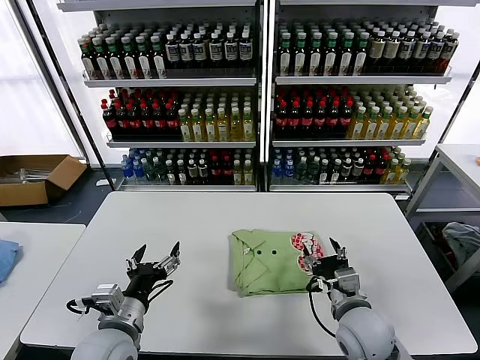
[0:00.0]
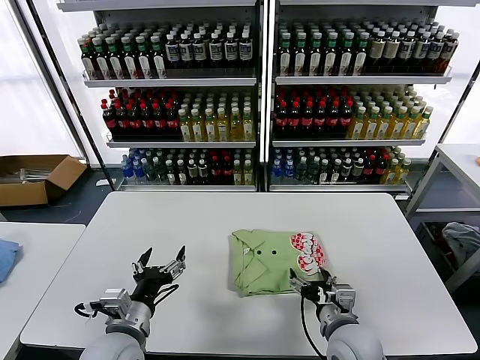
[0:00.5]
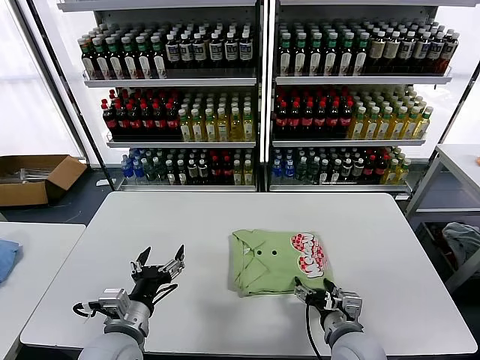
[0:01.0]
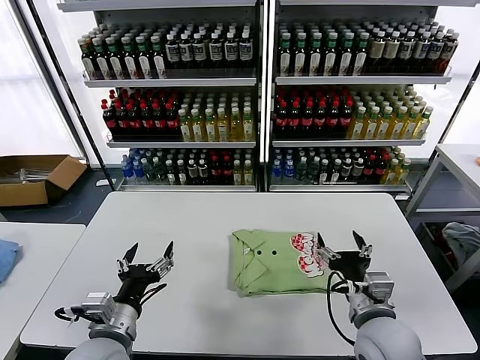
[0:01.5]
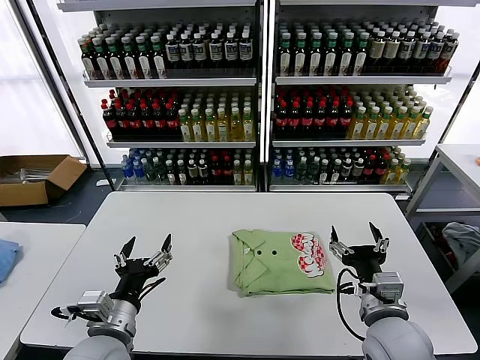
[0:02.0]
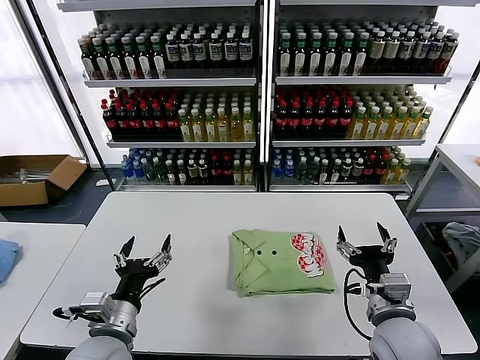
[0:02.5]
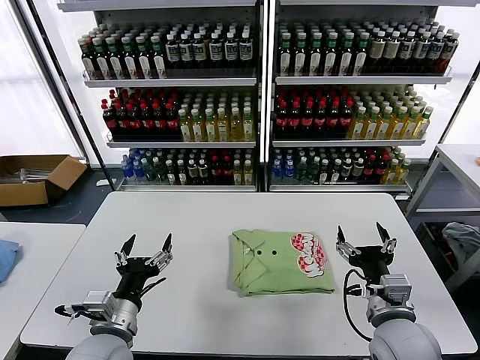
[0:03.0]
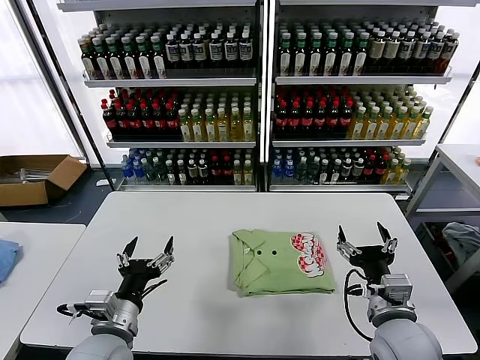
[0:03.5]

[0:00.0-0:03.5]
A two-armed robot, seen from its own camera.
Task of the whole recording: fold and organize the clothes.
0:00.0 to 0:02.0: The right gripper travels upward by roughly 5 cm.
0:02.0 to 0:03.5: The grippers stay close to where they were, moving slightly.

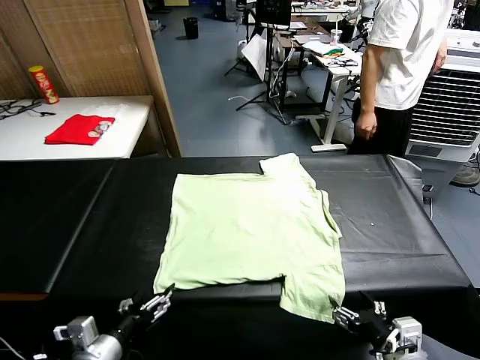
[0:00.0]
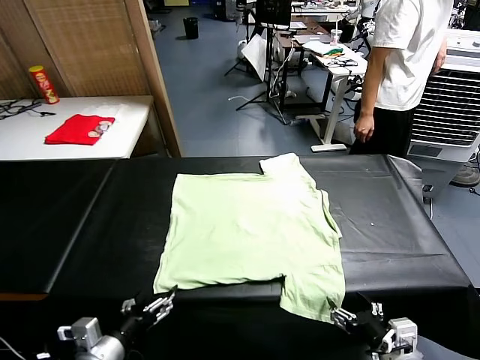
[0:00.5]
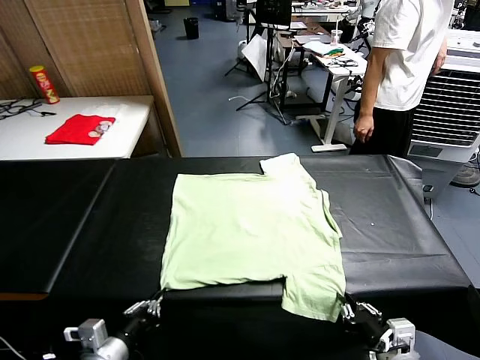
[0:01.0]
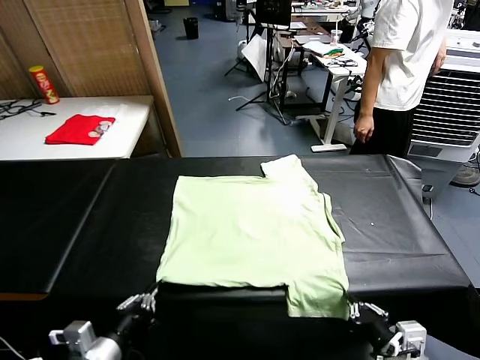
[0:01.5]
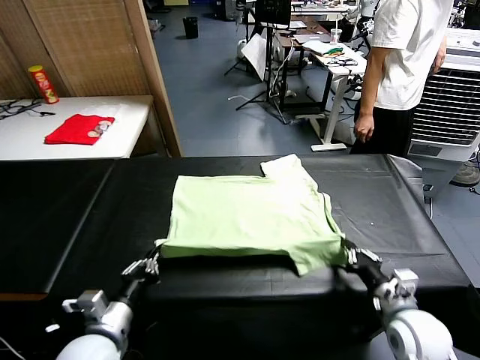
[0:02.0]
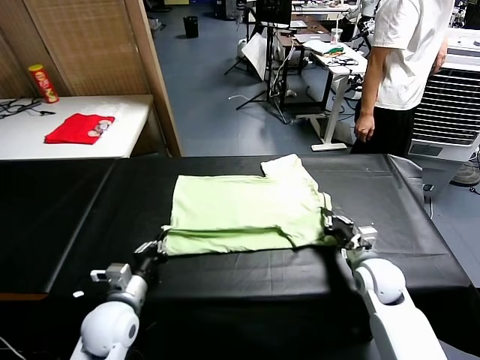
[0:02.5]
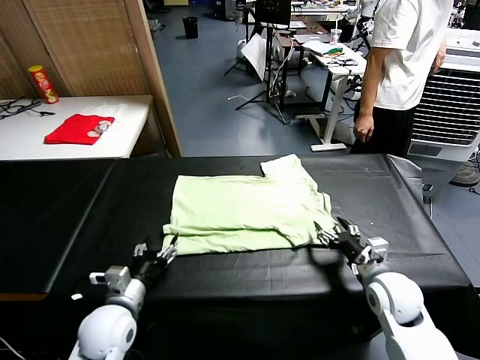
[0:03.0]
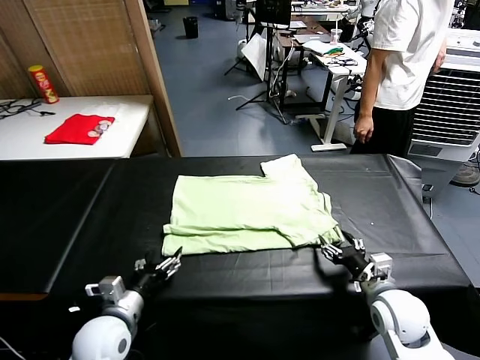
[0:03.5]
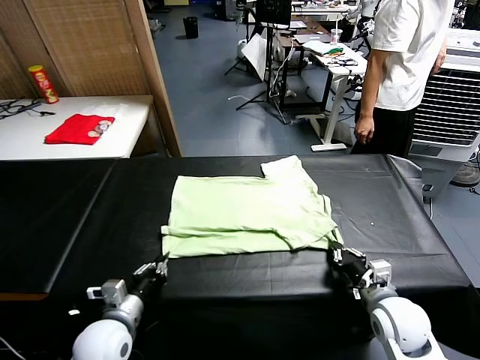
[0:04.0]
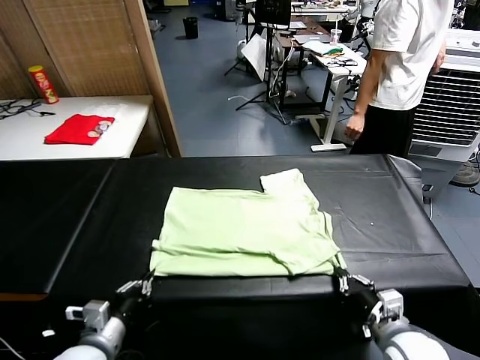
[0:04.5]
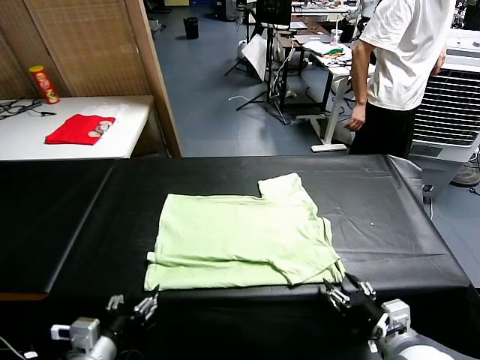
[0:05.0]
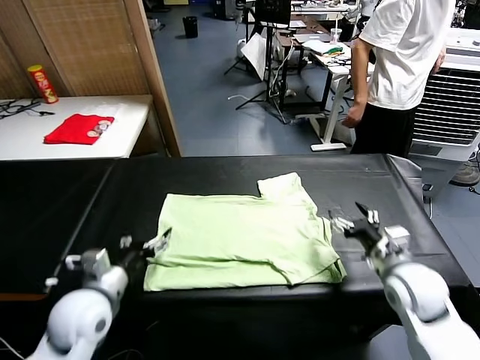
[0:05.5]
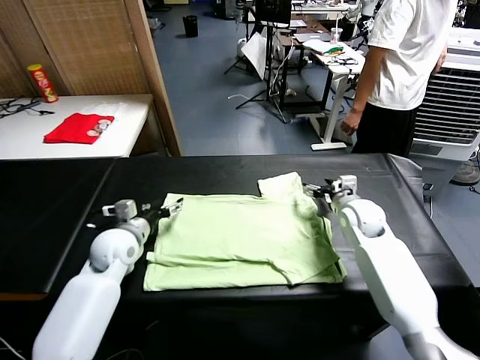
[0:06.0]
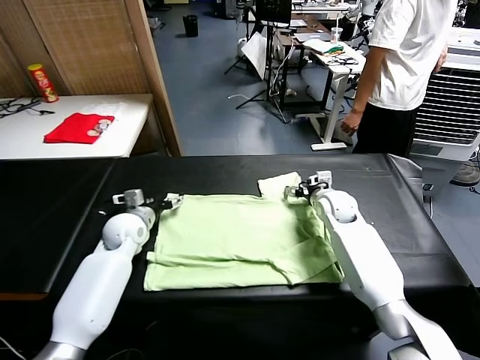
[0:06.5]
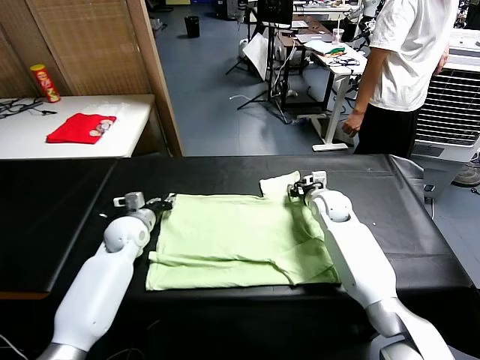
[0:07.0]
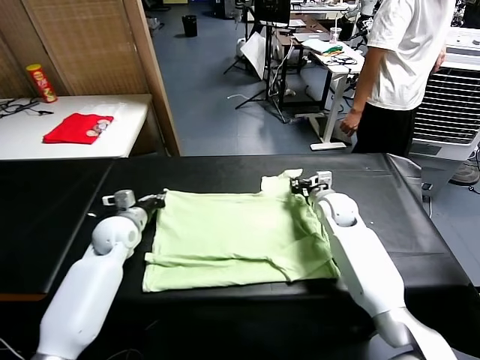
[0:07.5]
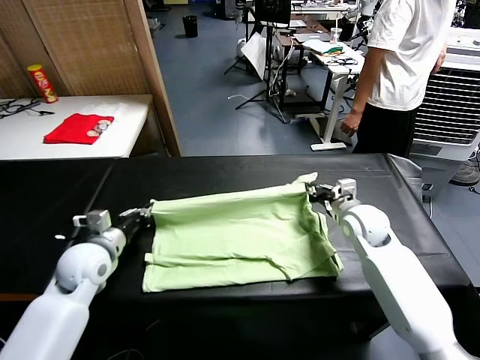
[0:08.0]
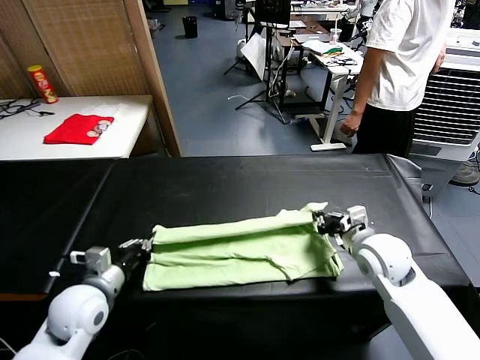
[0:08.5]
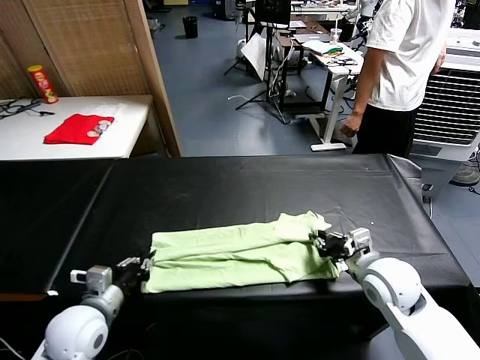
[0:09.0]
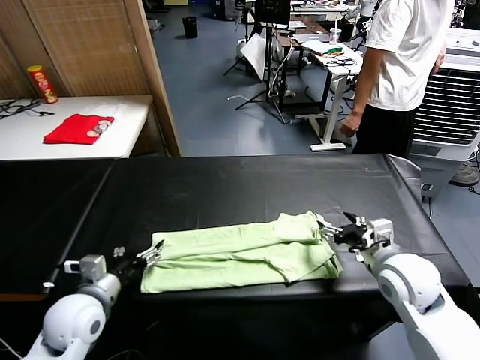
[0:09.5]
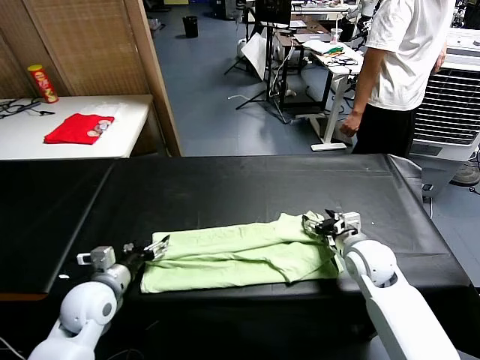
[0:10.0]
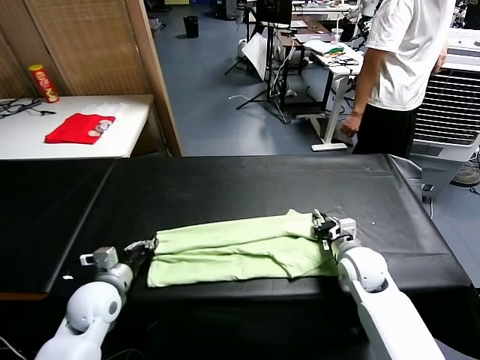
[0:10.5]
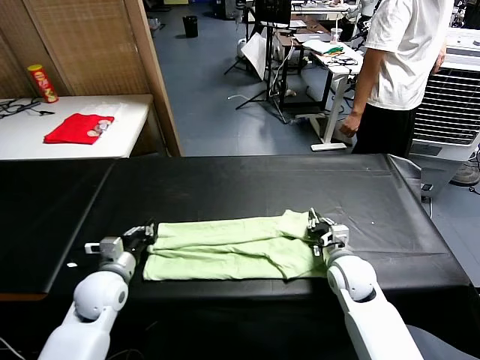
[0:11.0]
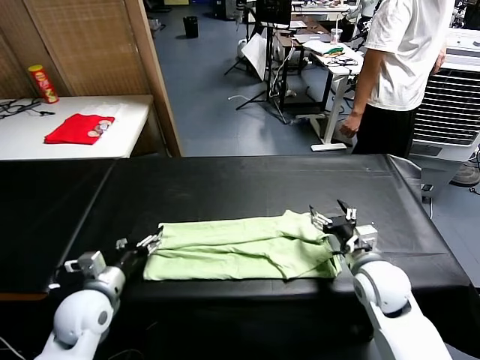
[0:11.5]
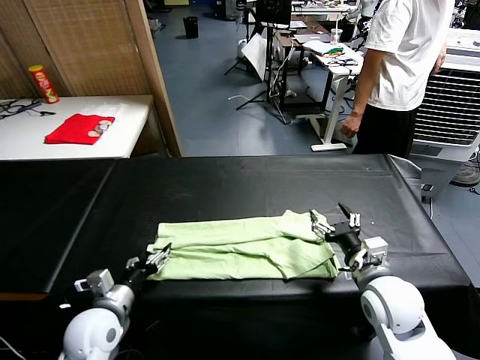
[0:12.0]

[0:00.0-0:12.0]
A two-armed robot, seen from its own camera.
Task of the whole recording: fold and organize the clothes.
Step, 0:00.0 to 0:01.0: use both grippers simultaneously to clamp the lower edge of the clothing fabric.
Step, 0:01.5 to 0:02.5: use both grippers to drag the lower edge of the fabric forward and fold it over the upper edge.
Step, 0:03.0 to 0:05.0: Drag the clothes downward with both gripper.
Step, 0:05.5 to 0:07.0: use both grippers simultaneously to clamp the upper edge of the clothing fabric.
Step, 0:07.5 to 0:09.0: use both grippers to drag the upper edge of the fabric backward and fold it over the lower edge.
0:02.0 to 0:04.0: The right gripper heads backward, covering roughly 10 cm, and opens, then closes once more. The left gripper opens, then closes once more.
0:04.0 to 0:06.0: The two grippers go about 25 cm forward. The left gripper opens up. Meanwhile the right gripper opens its fingers.
0:06.0 to 0:08.0: The left gripper shifts approximately 5 cm backward, and closes up; the right gripper goes approximately 10 cm backward, and closes.
0:08.0 to 0:10.0: The left gripper travels backward by roughly 5 cm, and opens up; the right gripper shifts roughly 5 cm downward, goes backward and returns, roughly 10 cm each way, and opens.
0:10.0 to 0:12.0: The left gripper ends up some 5 cm from where it was, and closes, then opens again; the right gripper is displaced backward by about 10 cm, and closes, then opens again.

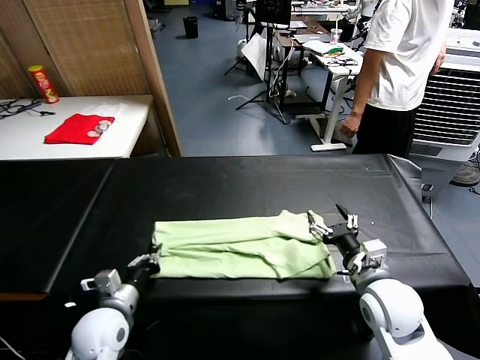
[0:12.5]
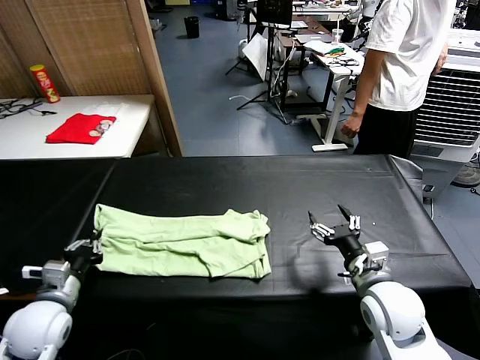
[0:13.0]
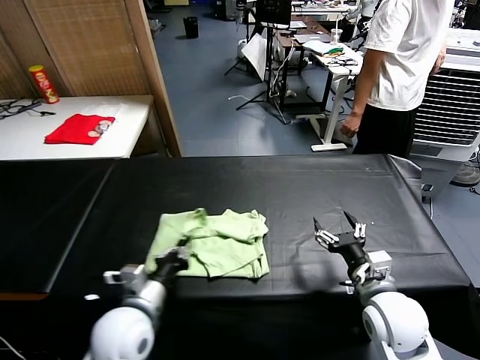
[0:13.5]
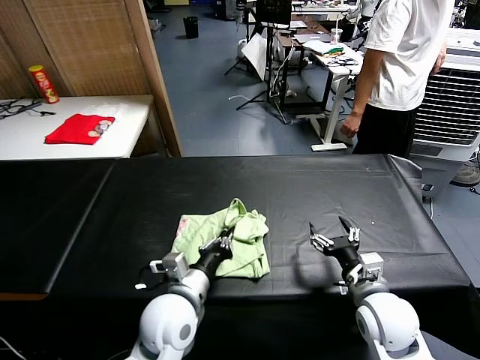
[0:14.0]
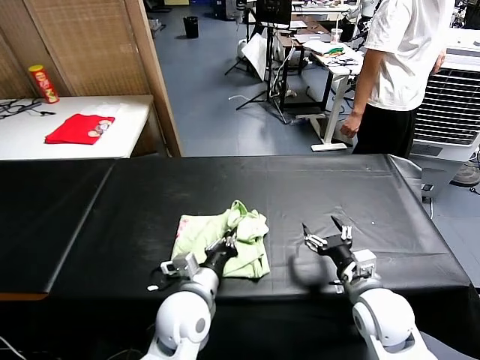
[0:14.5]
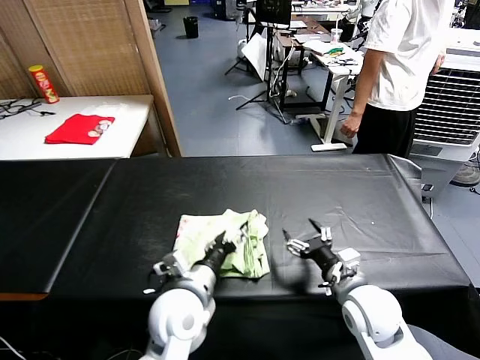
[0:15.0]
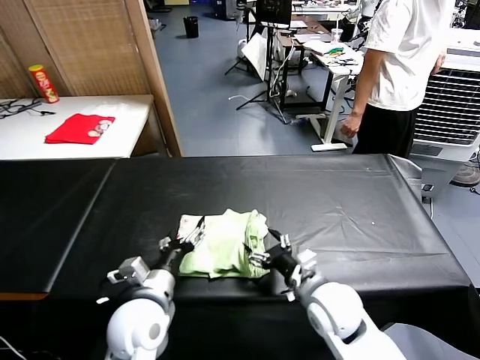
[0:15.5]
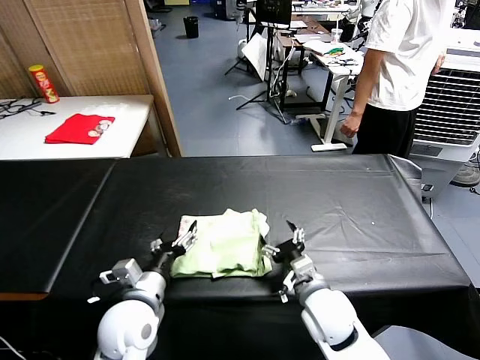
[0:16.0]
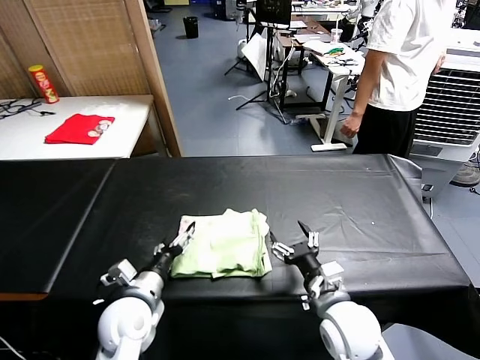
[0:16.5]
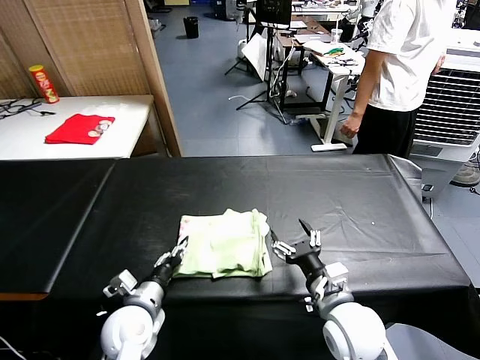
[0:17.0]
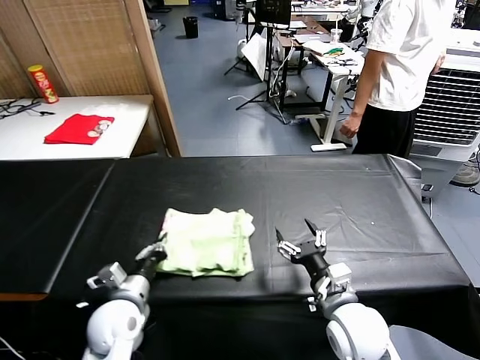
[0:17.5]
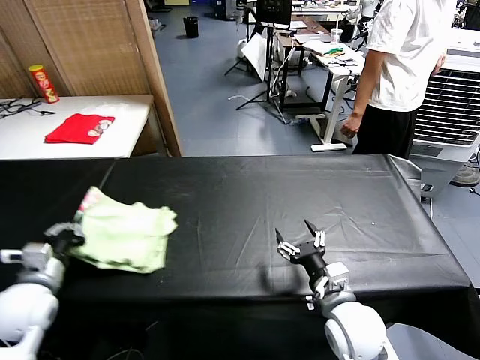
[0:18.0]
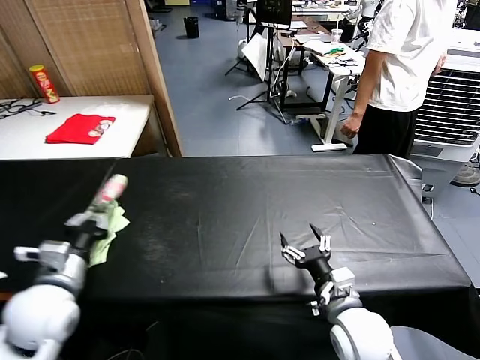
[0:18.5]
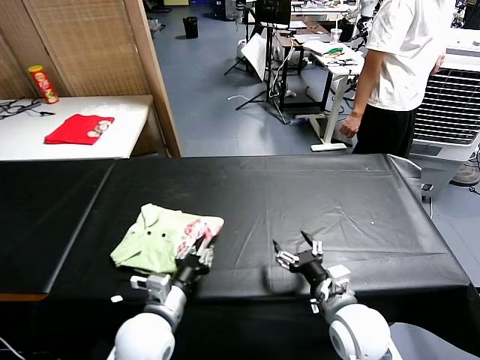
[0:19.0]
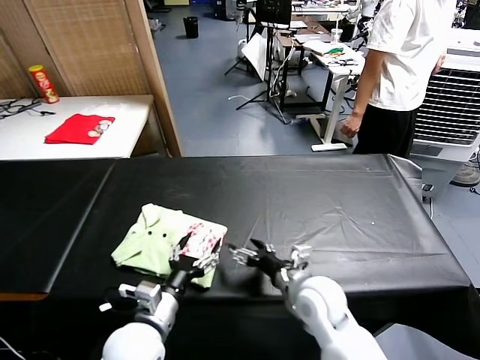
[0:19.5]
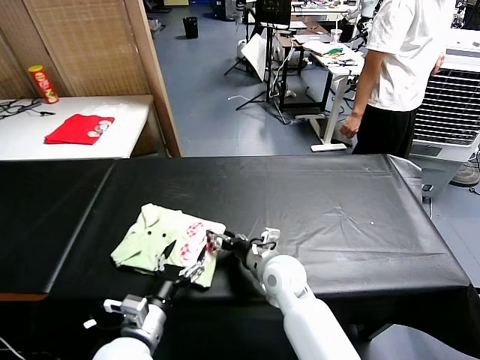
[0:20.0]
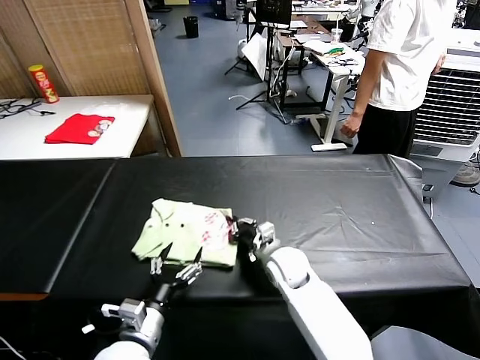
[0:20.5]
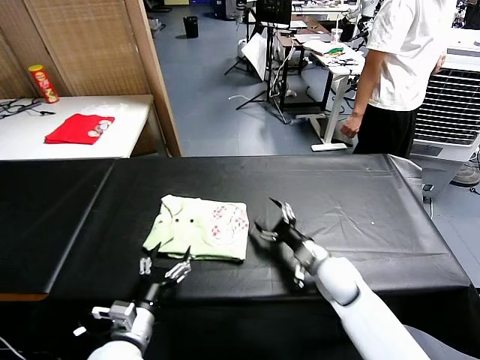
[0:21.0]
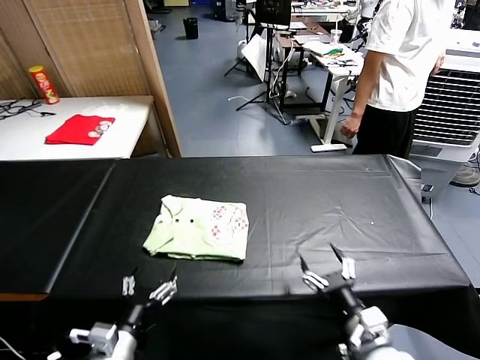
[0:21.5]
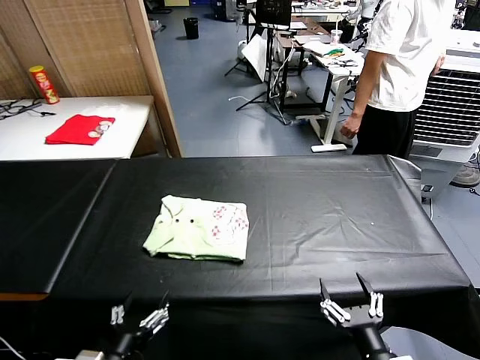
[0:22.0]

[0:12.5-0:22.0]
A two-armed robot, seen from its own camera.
Task of the whole recording: fold and organize the clothes.
Step, 0:12.5 to 0:15.0: use the left gripper to drag the left edge of the fabric to the left and folds it over the right edge.
Step, 0:15.5 to 0:19.0: Flip the folded clothes over with left gripper.
Step, 0:19.5 to 0:20.5: Drag the clothes to the center of the table.
0:12.5 to 0:14.5: The left gripper is displaced to the right by some 15 cm.
0:14.5 to 0:16.5: The right gripper travels to the left by about 5 cm. Meanwhile the left gripper moves to the left, approximately 10 cm, and opens.
0:16.5 to 0:18.0: The left gripper is displaced to the left by roughly 15 cm, and closes up.
0:18.0 to 0:20.0: The right gripper travels forward and to the left by roughly 15 cm, while the left gripper heads to the right, covering some 20 cm, and opens up.
0:20.0 to 0:22.0: The left gripper moves backward, roughly 10 cm. Meanwhile the right gripper shifts roughly 30 cm backward and to the right, and closes, then reopens.
